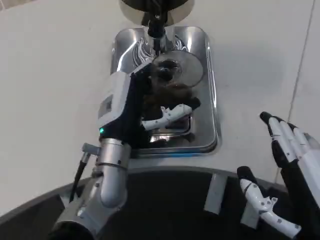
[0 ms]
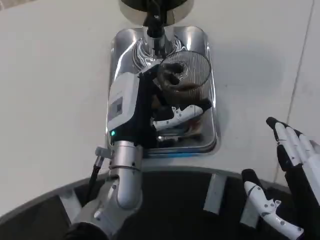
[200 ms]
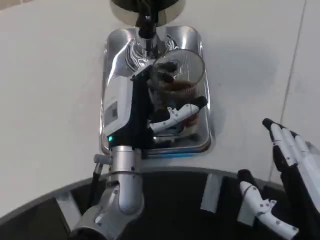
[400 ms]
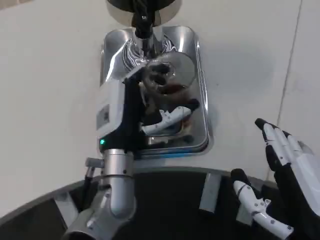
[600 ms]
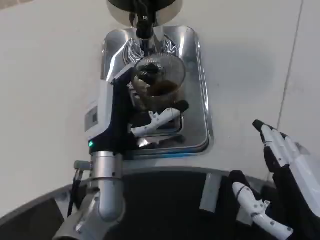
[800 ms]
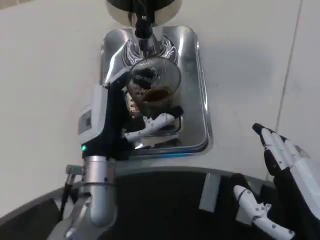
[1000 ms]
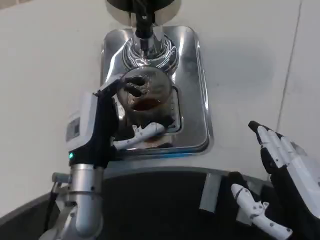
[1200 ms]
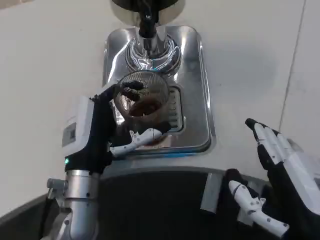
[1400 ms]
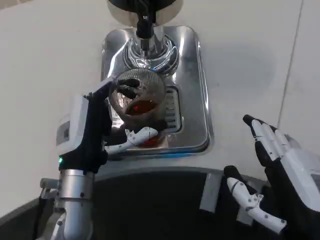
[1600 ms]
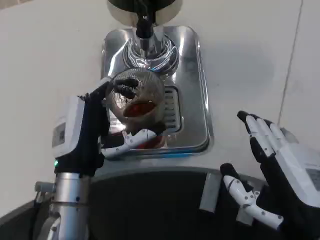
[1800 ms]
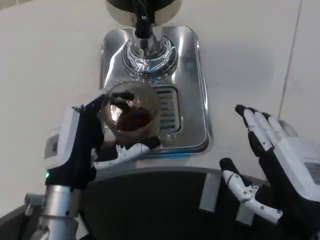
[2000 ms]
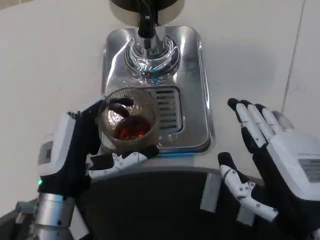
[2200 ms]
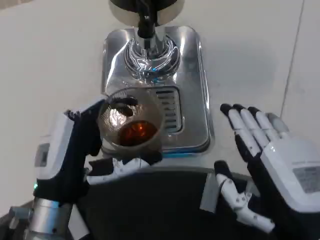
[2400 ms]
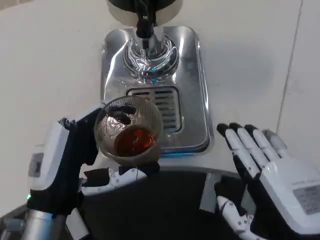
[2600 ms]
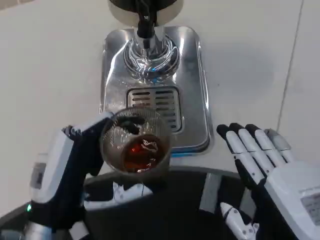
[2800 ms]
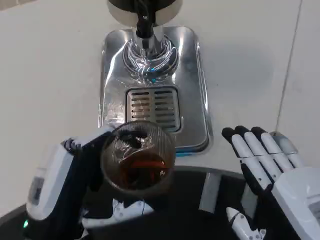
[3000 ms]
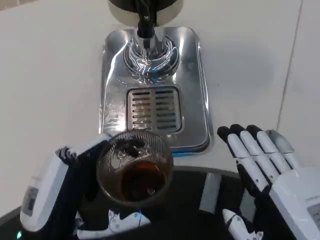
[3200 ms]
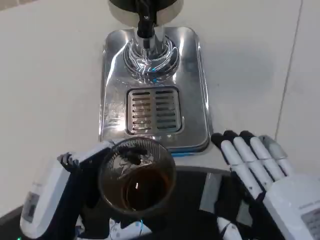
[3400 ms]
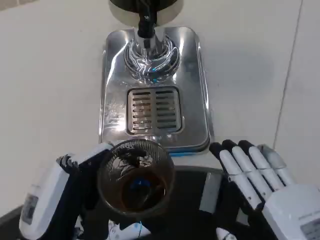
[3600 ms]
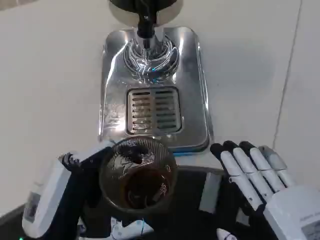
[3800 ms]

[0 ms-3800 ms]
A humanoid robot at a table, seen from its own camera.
Task of the whole recording: Grasp the cup under the faucet to collect the drink, then remove the cup.
0 ms to 1200 ms: The left hand changes place by roughly 5 cm.
1200 ms to 2600 ms: The left hand is displaced backward by roughly 10 cm.
2600 ms to 3800 ms: The left hand moves backward, about 5 cm.

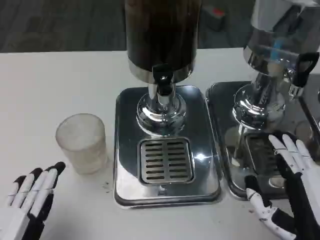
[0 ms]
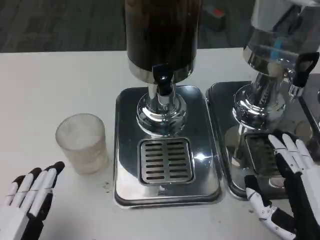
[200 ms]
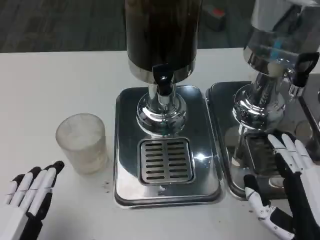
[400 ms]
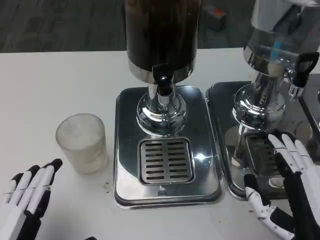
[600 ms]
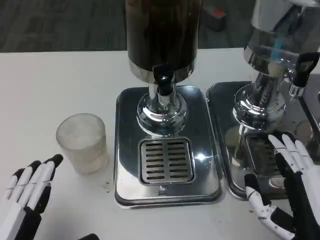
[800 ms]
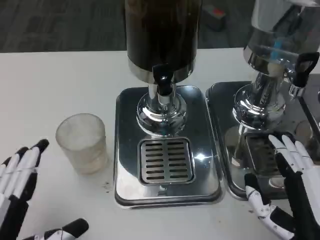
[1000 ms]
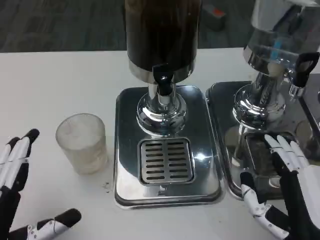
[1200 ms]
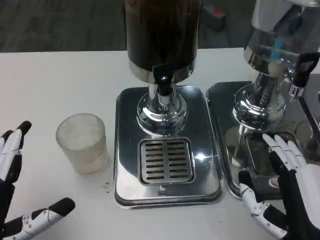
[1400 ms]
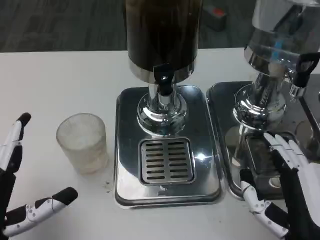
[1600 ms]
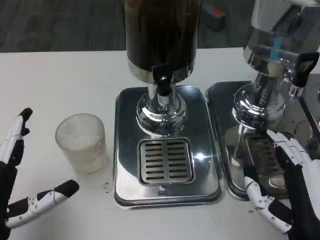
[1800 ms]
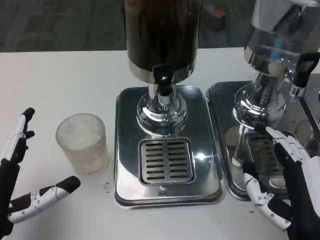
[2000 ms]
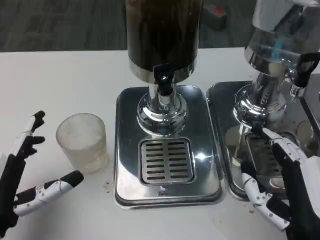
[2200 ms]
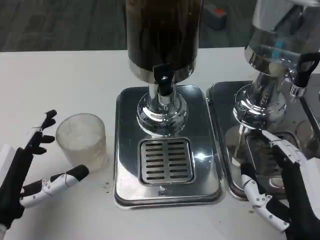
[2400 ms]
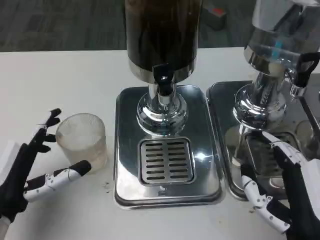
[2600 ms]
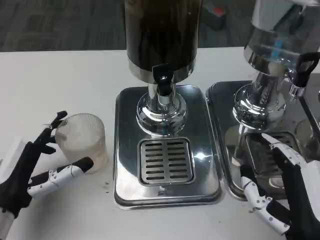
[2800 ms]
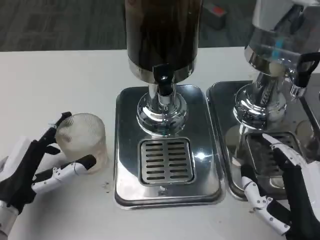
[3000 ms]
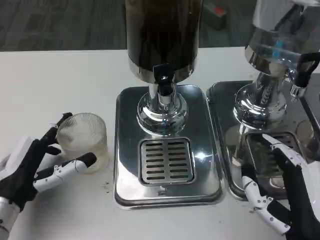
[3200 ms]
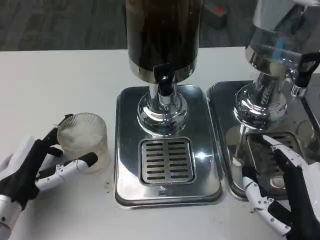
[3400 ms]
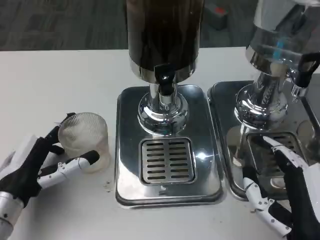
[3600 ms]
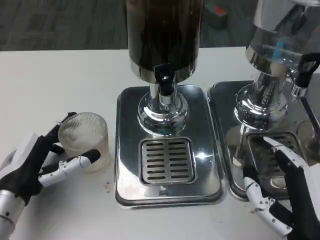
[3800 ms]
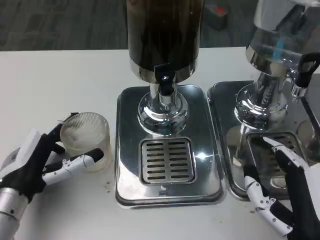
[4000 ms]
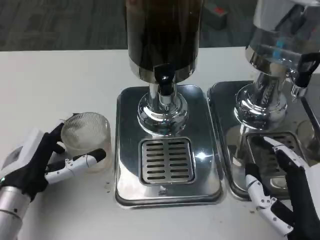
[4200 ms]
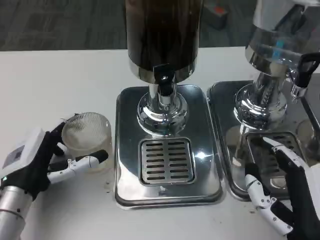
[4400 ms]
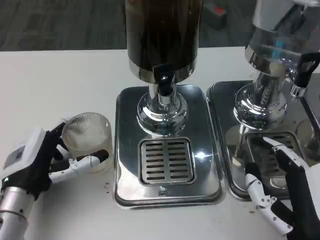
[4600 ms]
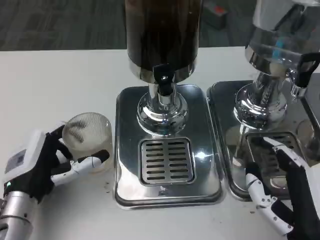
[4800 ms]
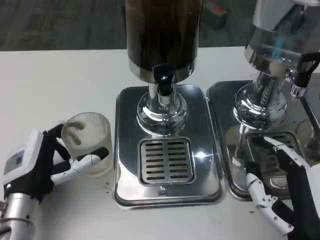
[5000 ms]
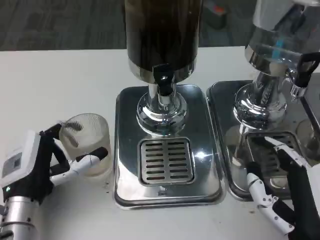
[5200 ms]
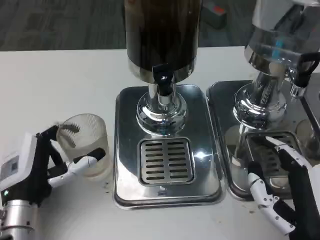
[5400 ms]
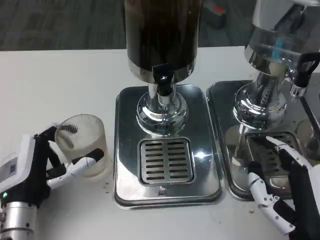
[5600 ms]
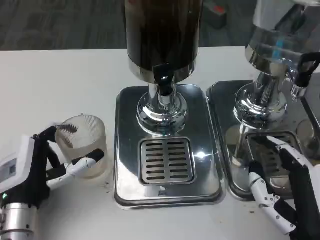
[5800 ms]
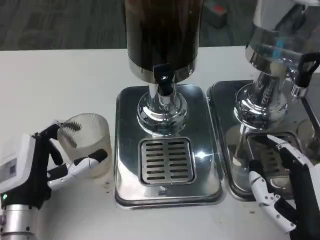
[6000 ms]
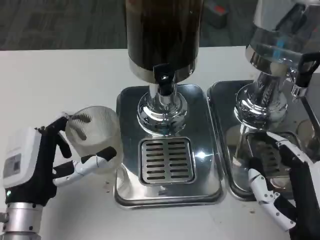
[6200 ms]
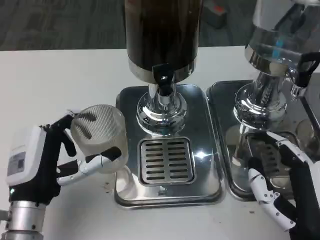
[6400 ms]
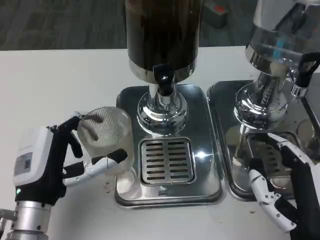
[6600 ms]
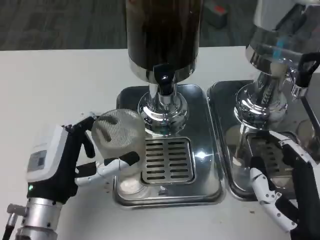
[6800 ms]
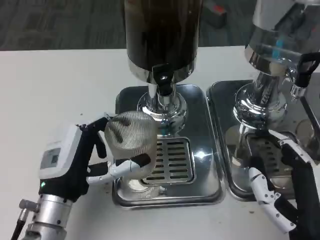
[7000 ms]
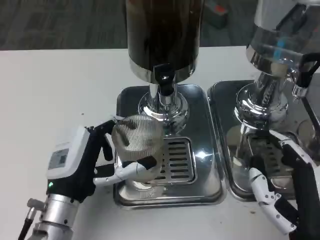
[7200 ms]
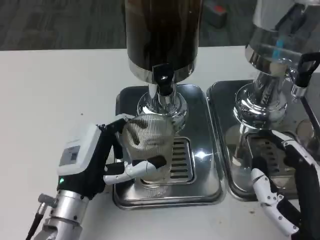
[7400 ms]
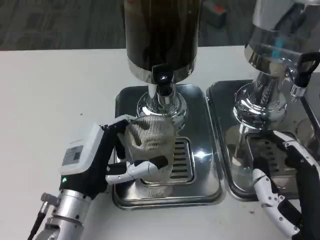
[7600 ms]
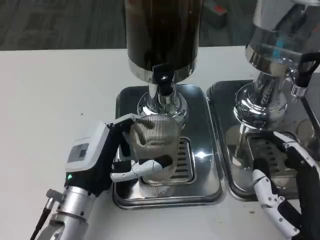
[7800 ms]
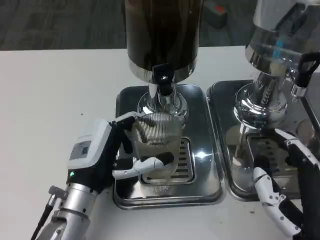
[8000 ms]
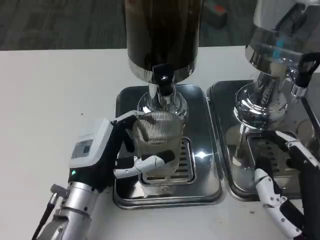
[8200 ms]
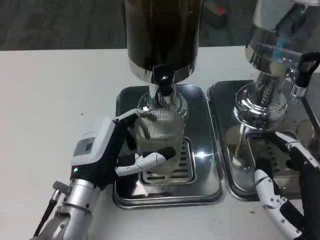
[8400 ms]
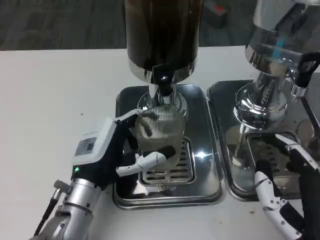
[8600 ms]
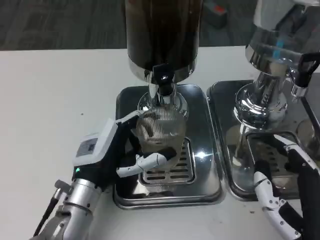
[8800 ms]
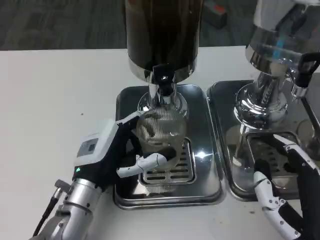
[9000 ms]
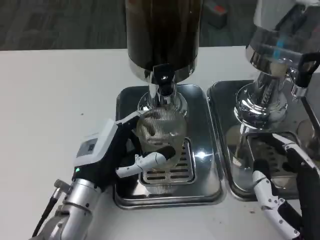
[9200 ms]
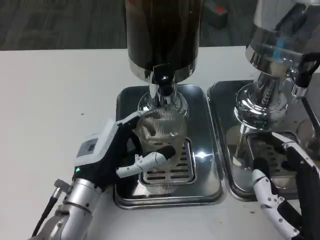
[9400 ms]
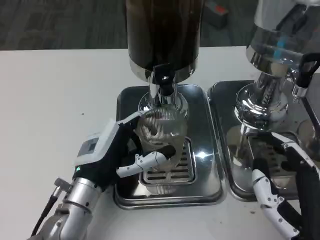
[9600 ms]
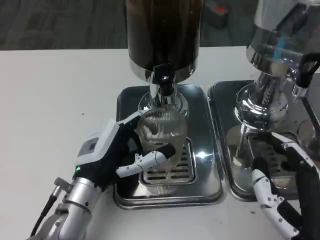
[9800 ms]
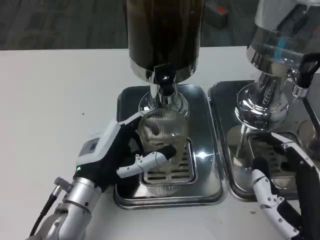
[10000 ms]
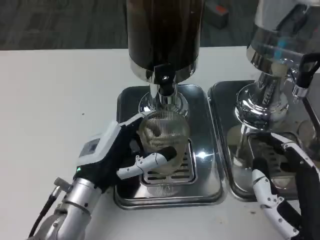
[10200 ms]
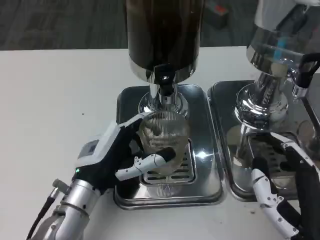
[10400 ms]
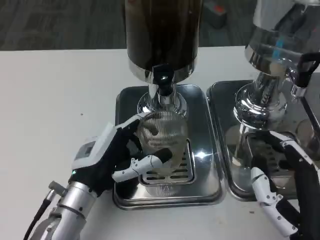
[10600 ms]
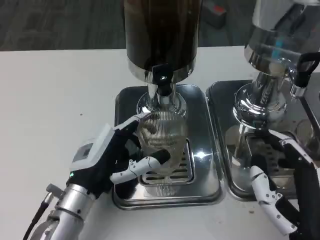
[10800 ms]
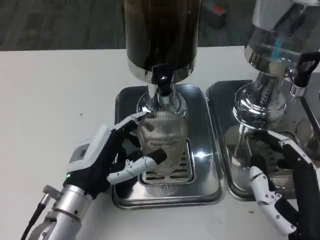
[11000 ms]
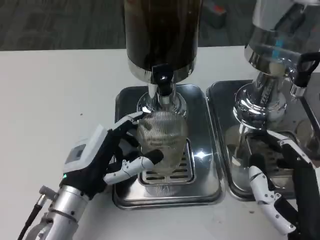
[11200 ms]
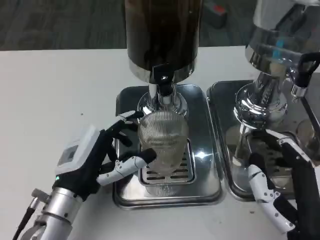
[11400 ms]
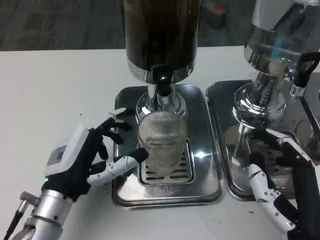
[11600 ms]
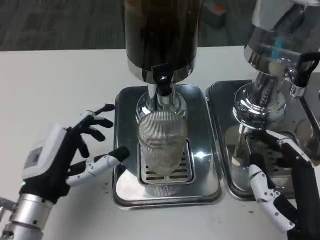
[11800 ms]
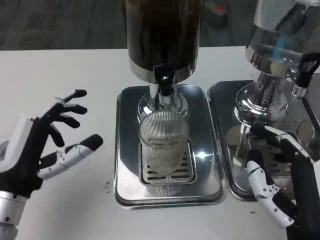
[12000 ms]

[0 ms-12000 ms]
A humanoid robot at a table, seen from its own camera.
Task of the whole recording: Grasp the cup under the faucet to collect the drink, then remove the cup.
0 ms to 1600 ms: The left hand heads forward, covering approximately 5 cm.
1600 ms to 3000 ms: The left hand travels forward by roughly 10 cm.
3000 ms to 6000 ms: There are only small adjustments of the hands.
6000 ms to 7600 ms: The left hand is displaced to the right by some 5 cm.
7600 ms to 10400 ms: There are only small adjustments of the hands.
10400 ms to 12000 ms: The left hand travels to the left by about 10 cm.

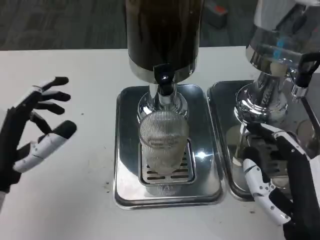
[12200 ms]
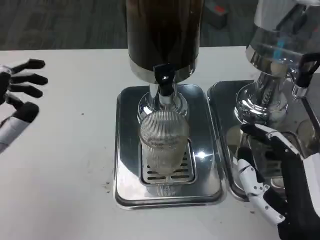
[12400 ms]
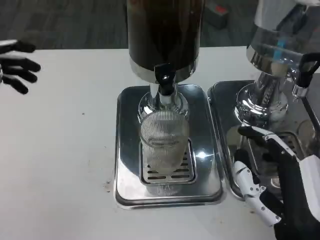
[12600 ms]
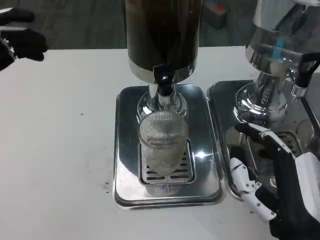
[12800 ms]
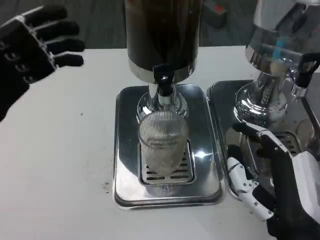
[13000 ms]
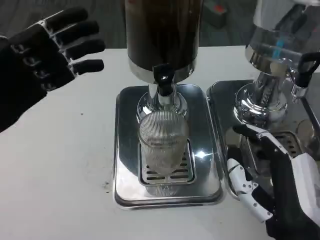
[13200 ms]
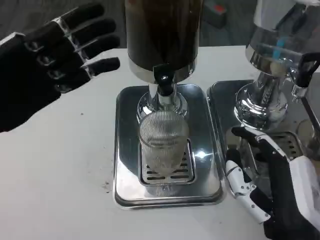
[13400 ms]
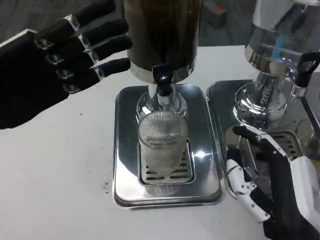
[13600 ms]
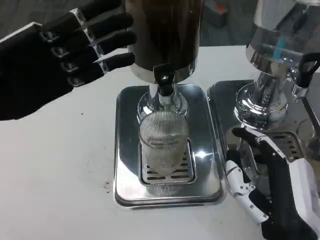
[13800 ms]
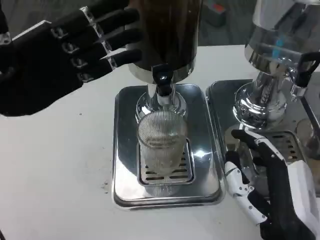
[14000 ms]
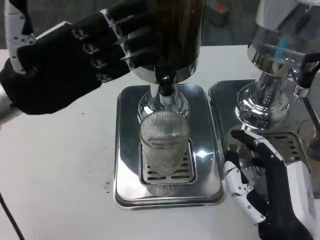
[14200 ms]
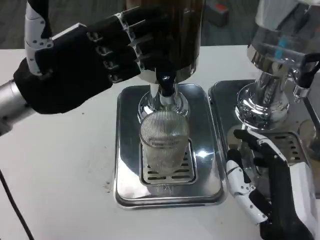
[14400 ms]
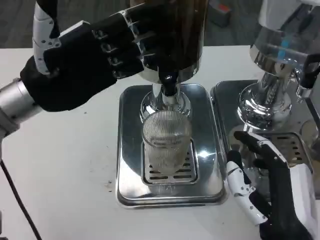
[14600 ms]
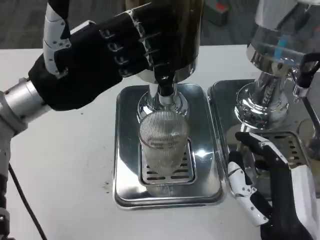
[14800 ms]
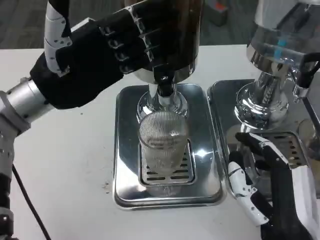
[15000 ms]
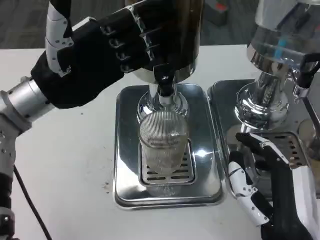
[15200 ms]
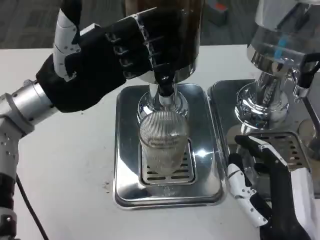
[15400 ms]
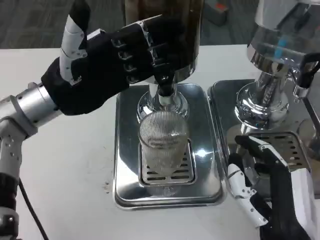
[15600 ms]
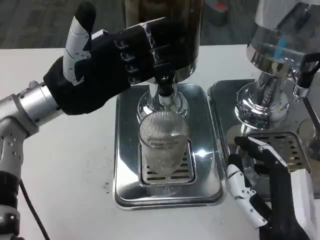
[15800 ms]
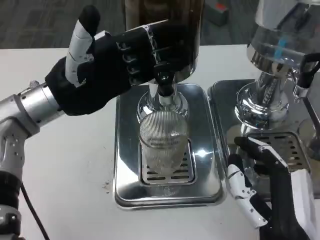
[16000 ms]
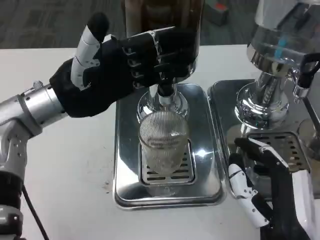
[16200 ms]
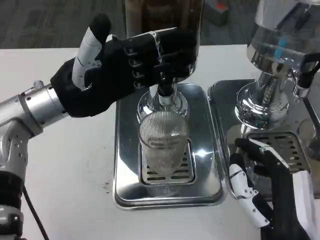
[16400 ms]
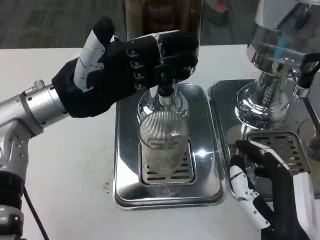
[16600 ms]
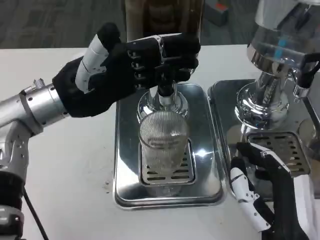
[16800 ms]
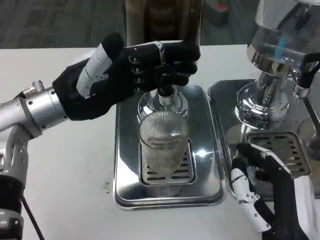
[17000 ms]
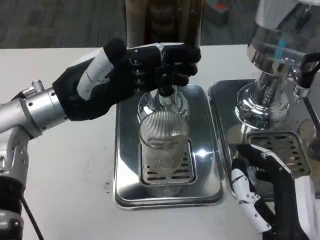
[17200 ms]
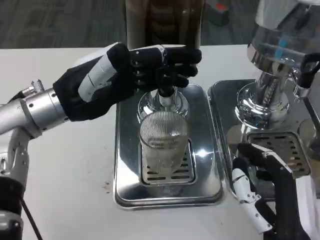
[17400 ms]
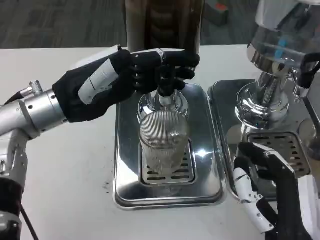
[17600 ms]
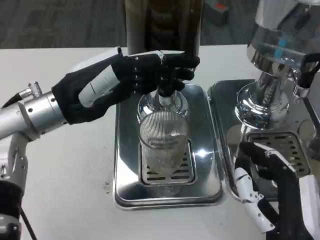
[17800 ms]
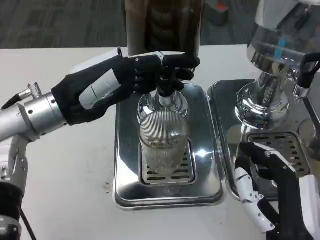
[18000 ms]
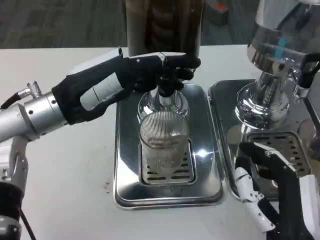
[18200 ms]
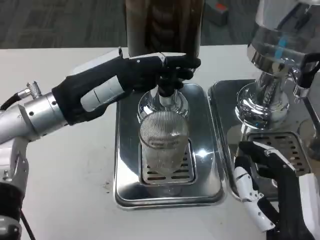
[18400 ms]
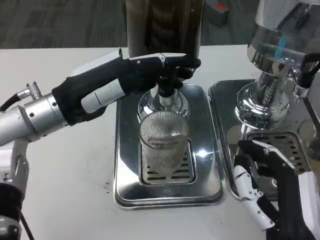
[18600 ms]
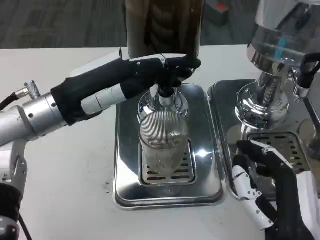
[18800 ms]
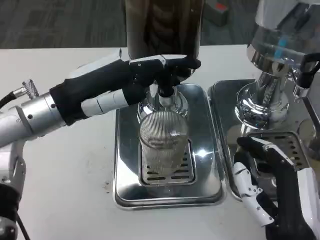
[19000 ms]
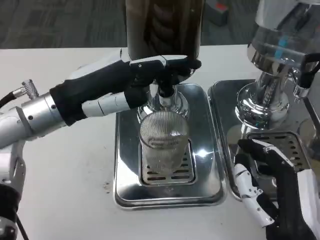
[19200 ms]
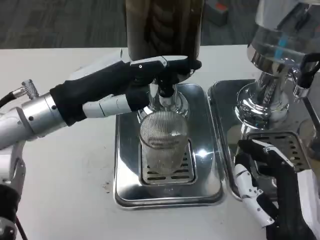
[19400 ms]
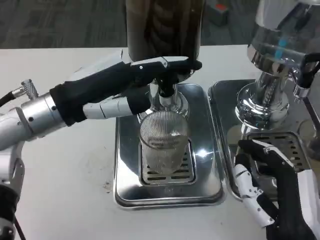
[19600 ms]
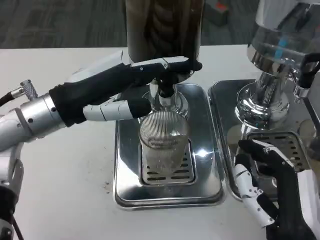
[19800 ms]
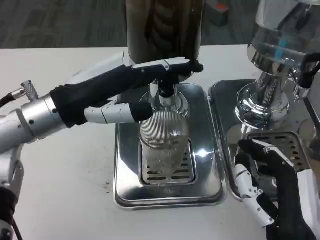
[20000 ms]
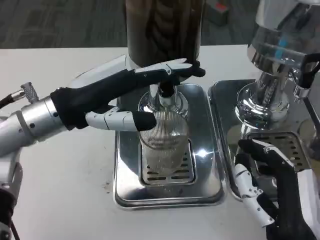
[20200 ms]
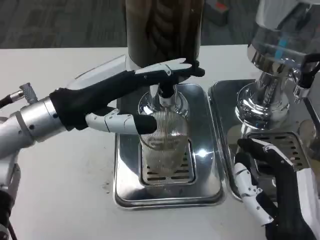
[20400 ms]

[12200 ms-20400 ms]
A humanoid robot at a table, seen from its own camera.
Task of the whole recording: Grasp the cup under the faucet to collect the drink, then remove the cup.
12200 ms to 13800 ms: The left hand heads upward and forward, covering some 15 cm.
13800 ms to 15400 ms: The left hand travels to the right by approximately 5 cm.
18800 ms to 20400 ms: There are only small adjustments of the hands.
